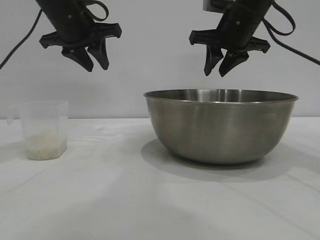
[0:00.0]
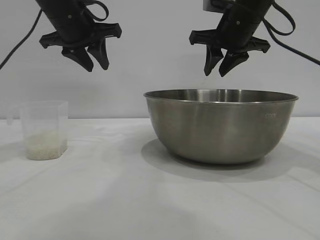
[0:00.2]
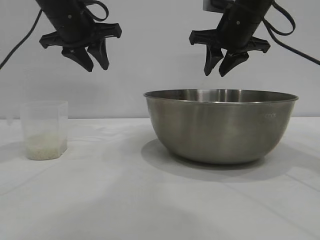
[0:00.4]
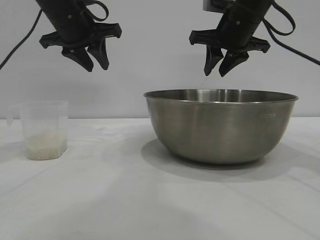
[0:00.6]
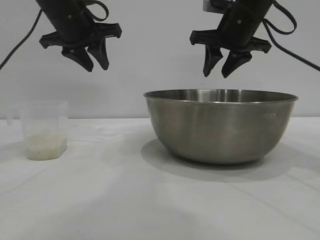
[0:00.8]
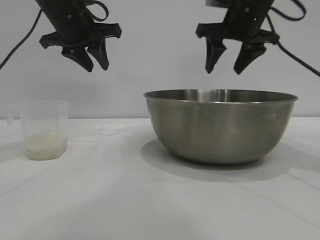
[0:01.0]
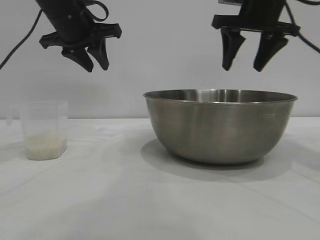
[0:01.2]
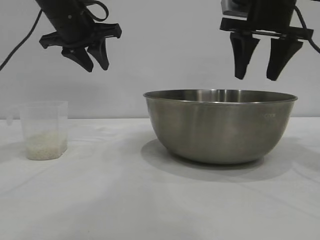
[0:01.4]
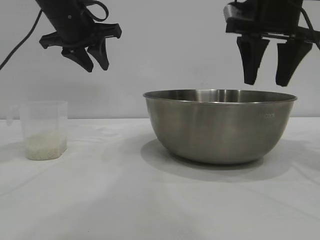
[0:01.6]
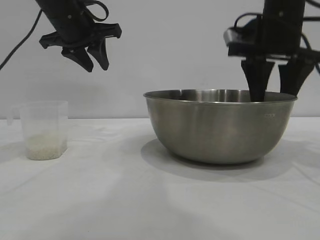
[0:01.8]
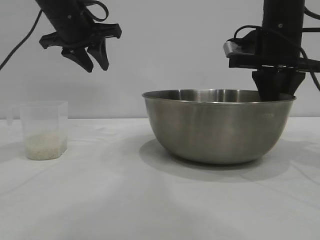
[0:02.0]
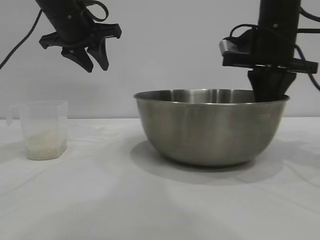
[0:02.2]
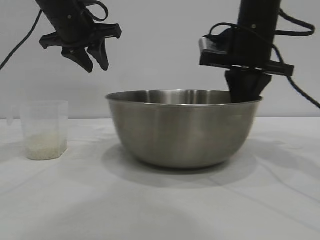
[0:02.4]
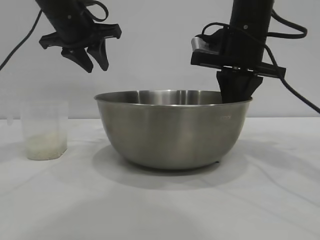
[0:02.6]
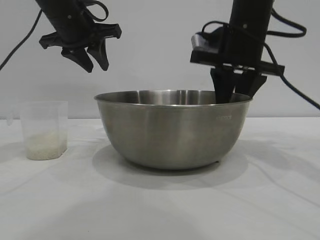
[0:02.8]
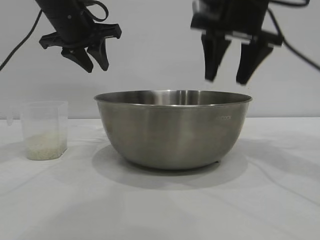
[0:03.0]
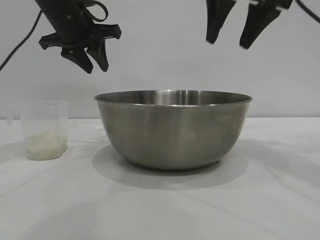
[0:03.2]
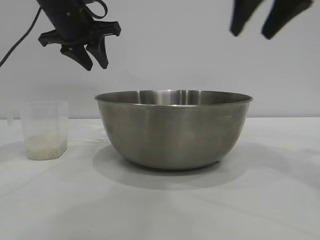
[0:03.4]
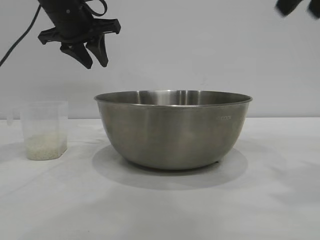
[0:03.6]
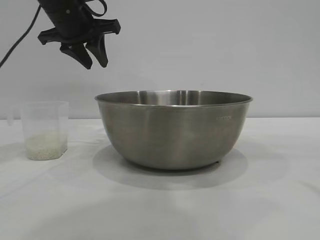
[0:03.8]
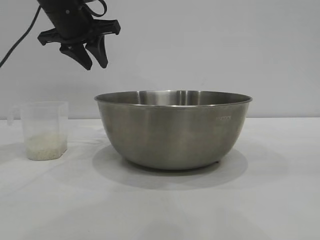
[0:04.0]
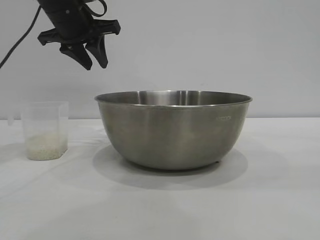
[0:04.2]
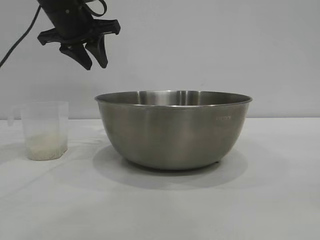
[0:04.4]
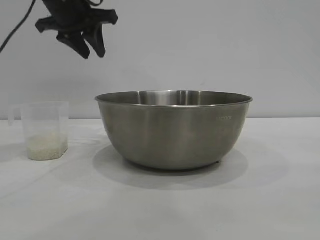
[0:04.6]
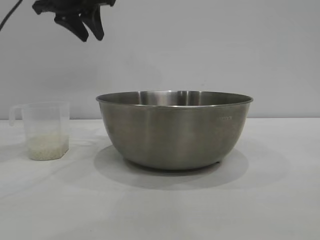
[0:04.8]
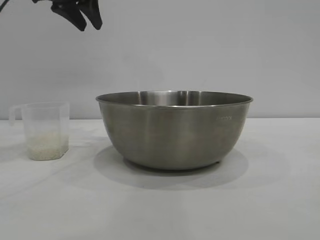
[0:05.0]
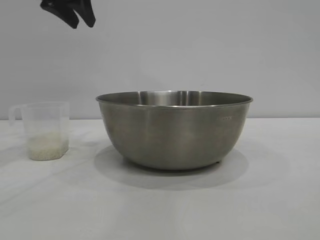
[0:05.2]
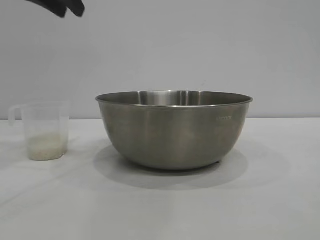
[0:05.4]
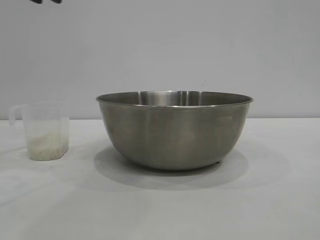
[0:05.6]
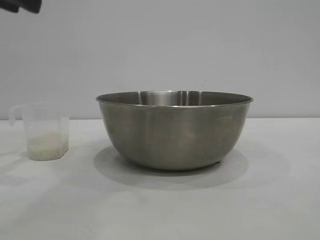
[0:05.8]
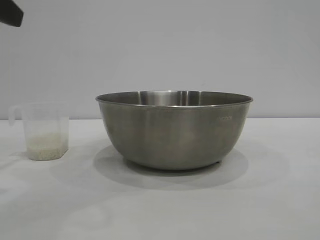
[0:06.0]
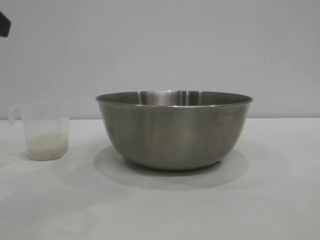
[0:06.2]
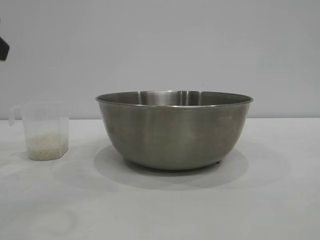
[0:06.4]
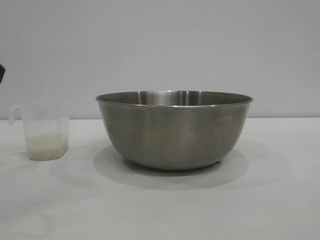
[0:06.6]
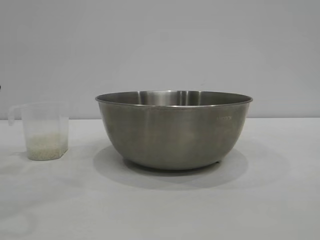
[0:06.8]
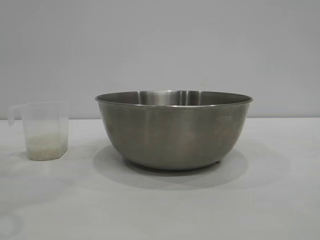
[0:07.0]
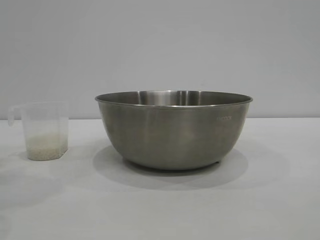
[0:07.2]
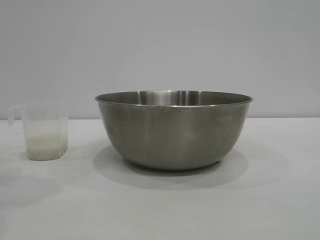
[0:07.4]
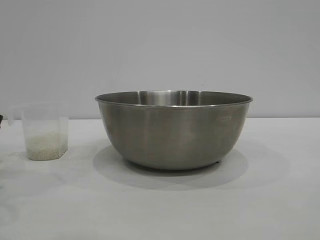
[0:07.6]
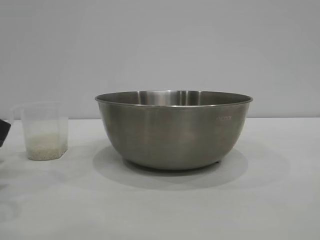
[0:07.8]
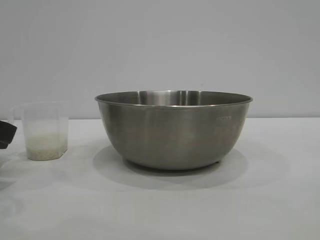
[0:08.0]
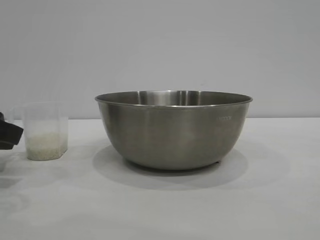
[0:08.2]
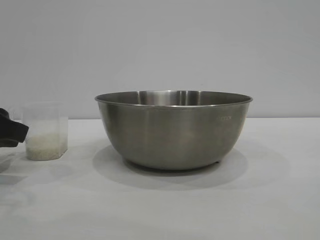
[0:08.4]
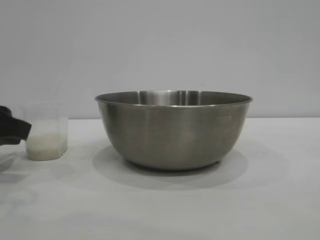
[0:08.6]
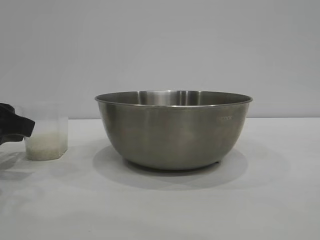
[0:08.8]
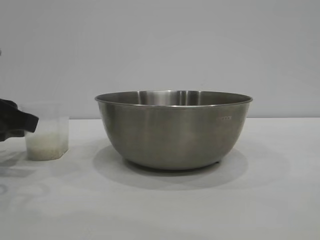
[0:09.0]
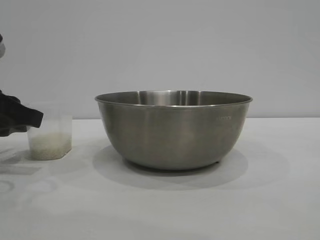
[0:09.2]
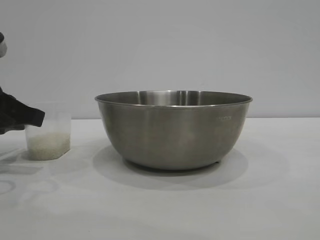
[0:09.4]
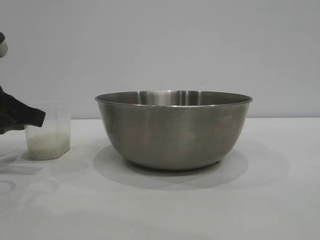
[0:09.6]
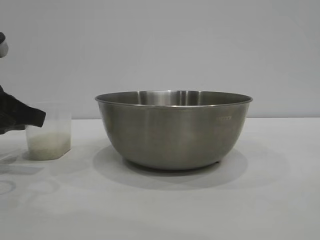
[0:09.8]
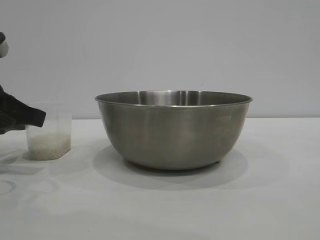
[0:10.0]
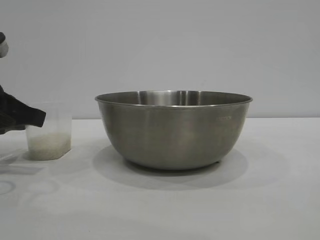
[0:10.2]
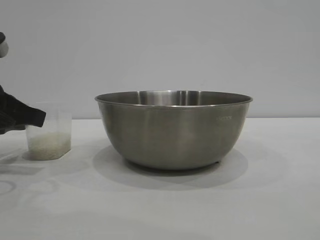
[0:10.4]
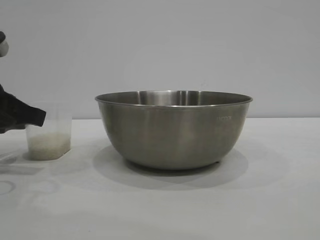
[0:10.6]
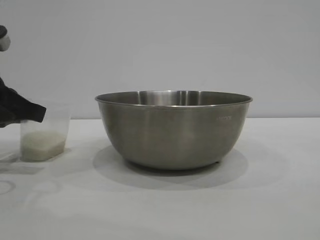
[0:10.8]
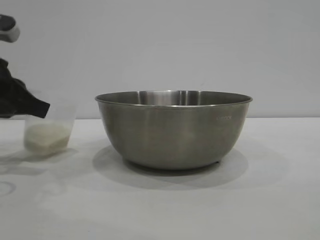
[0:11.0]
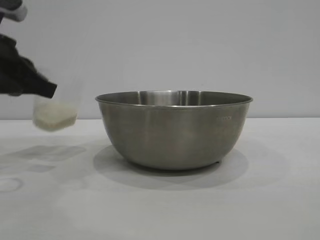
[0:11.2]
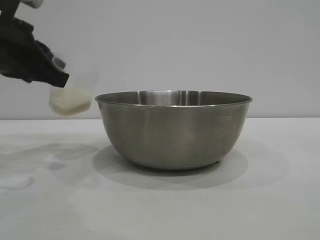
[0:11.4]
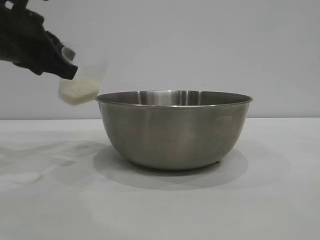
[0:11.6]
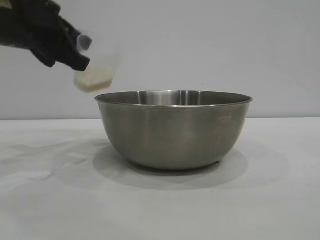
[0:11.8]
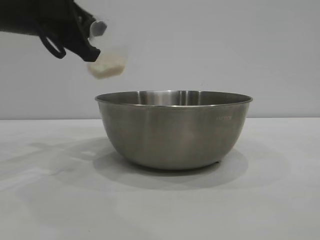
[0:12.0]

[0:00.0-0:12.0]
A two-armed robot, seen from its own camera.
Task of the whole recording: the right gripper grasp the rice container and place it in the center of the table, the left gripper grasp the rice scoop and pour the rice into the rice container.
Step, 0:00.0 to 0:03.0: Move the bowl to the center of view with the right gripper.
Step, 0:03.4 to 0:11.4: Pick up the cup with rice in it with the left gripper.

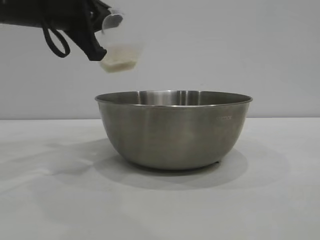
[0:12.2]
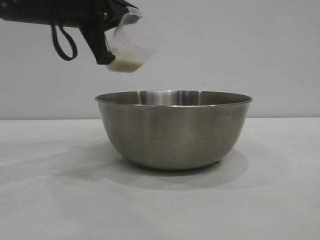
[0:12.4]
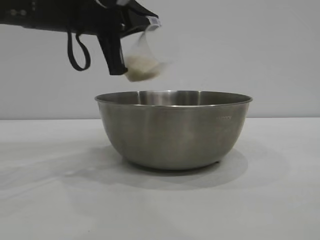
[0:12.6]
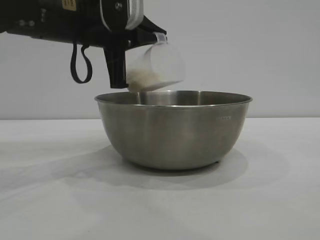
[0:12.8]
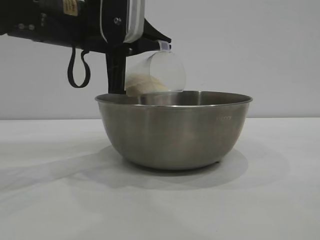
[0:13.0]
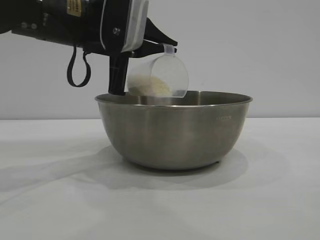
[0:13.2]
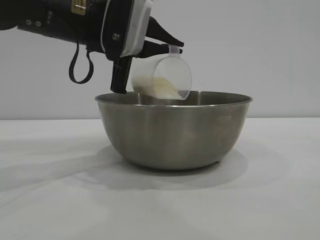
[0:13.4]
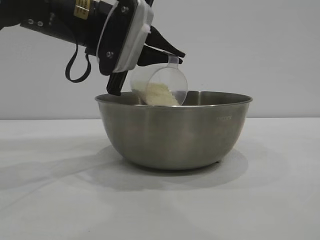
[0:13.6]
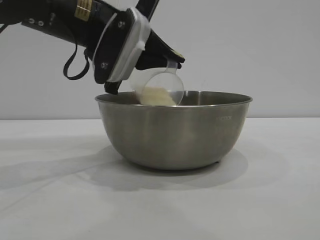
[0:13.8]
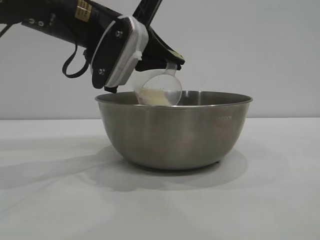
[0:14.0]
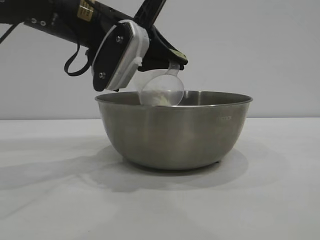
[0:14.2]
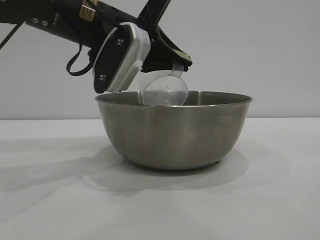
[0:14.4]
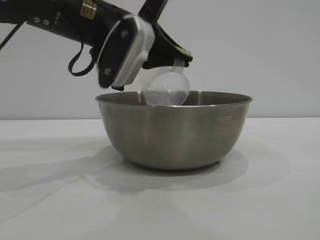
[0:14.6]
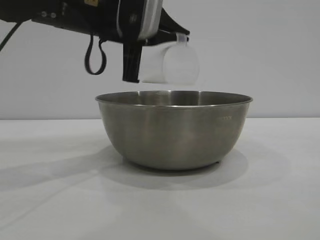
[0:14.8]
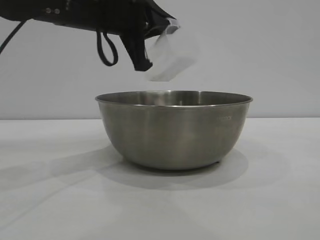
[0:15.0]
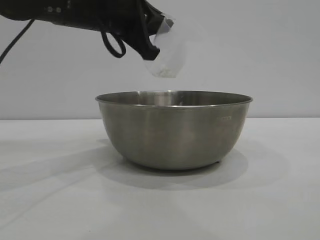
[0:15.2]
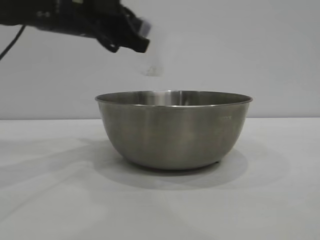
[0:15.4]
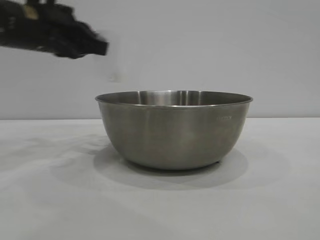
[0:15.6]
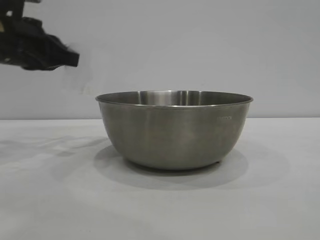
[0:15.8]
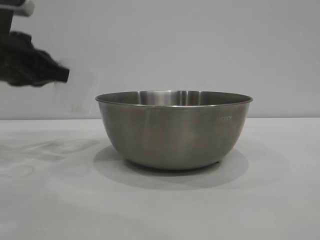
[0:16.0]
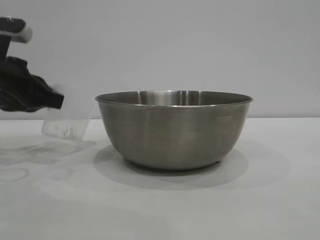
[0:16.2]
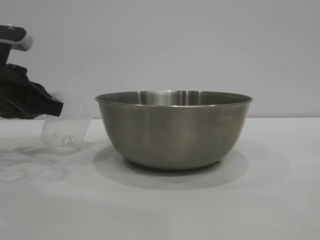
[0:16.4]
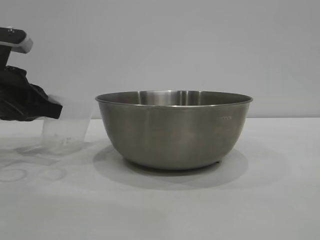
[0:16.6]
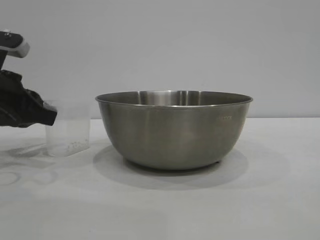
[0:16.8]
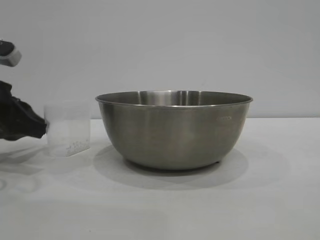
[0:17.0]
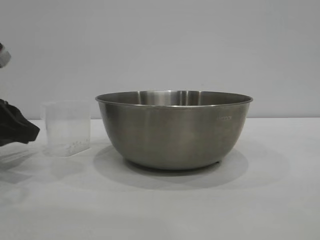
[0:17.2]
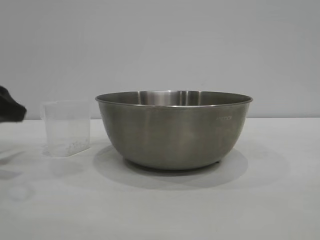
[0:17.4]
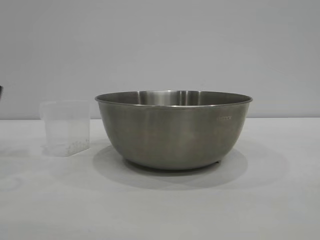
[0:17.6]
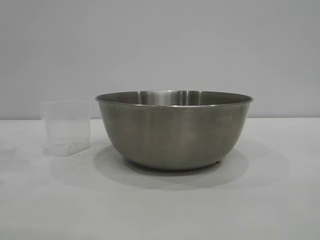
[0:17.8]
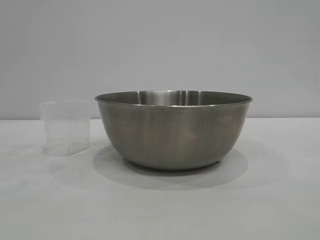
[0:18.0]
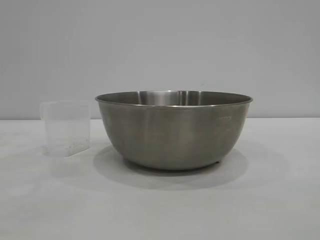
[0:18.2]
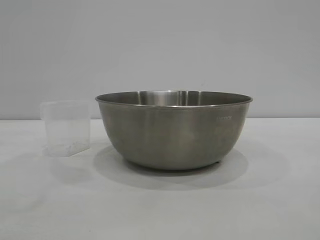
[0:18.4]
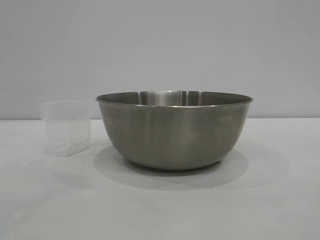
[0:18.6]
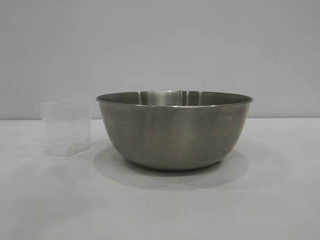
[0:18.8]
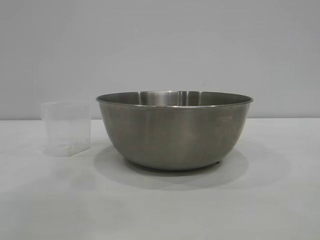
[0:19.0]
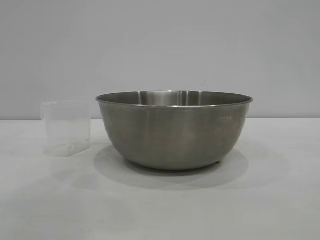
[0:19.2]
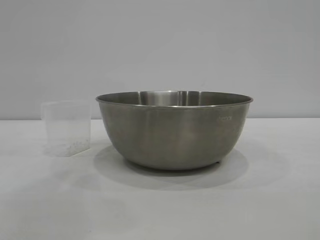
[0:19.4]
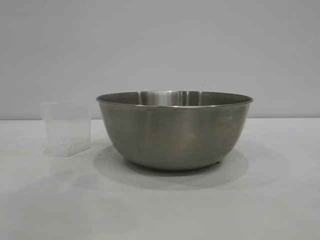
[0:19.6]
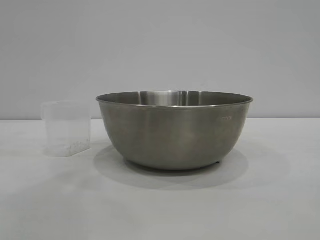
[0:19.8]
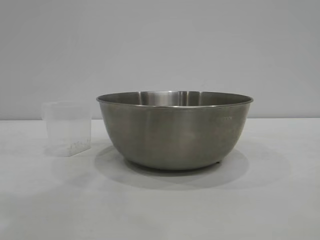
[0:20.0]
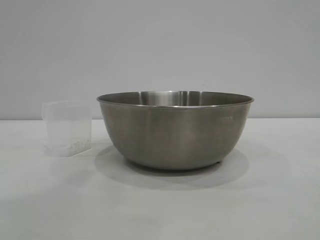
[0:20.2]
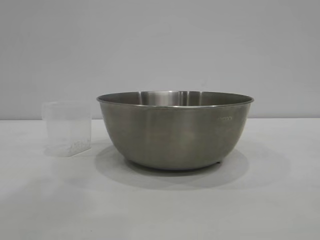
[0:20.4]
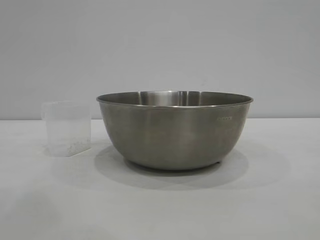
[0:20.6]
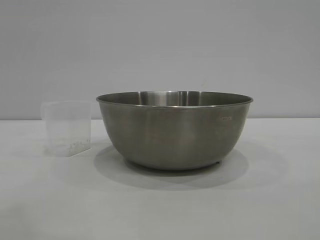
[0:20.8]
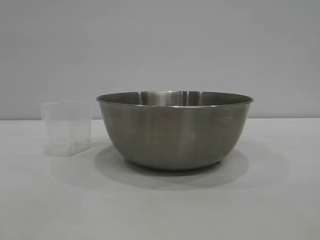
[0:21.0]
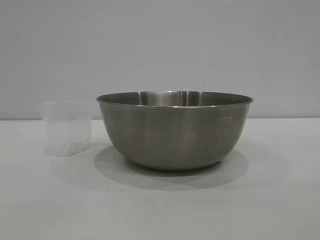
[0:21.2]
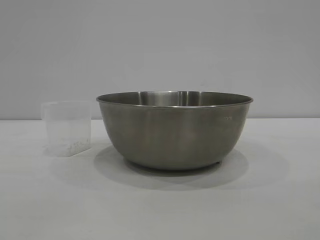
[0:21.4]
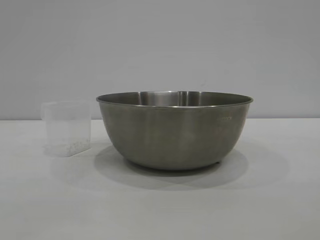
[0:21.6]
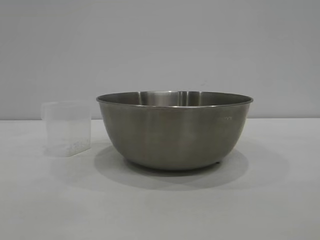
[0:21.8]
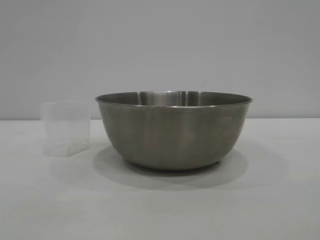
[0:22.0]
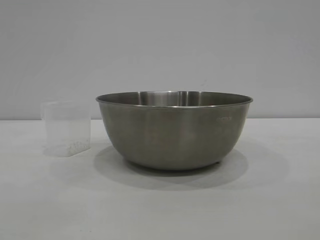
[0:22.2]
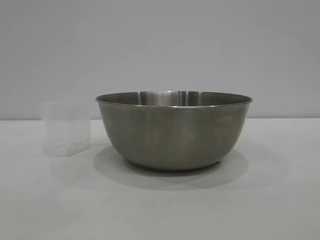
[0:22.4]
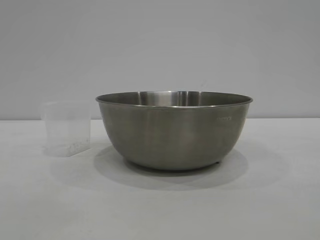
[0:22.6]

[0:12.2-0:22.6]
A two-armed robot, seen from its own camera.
Task of the whole recording: the right gripper grasp the rice container and place it in the center of the table, the left gripper grasp the rice scoop and pour the rice into the rice container.
Step, 0:12.2 to 0:15.0: Pour the rice from the cup into the bowl with the left gripper.
Step, 0:15.2 to 0:17.4: Place the cup on the table with the left gripper.
